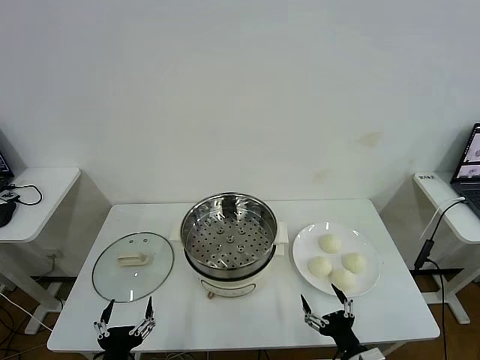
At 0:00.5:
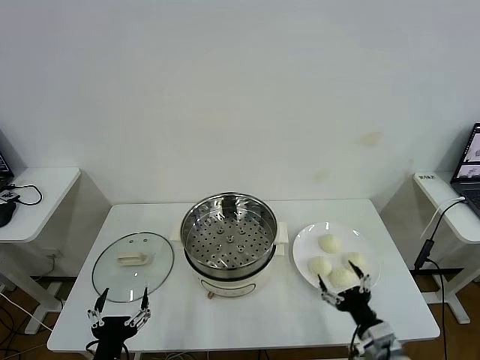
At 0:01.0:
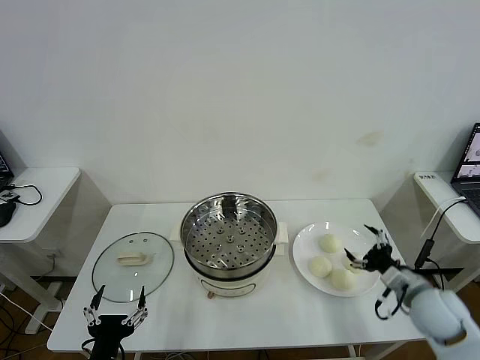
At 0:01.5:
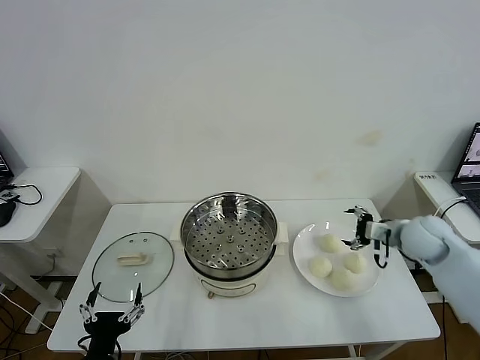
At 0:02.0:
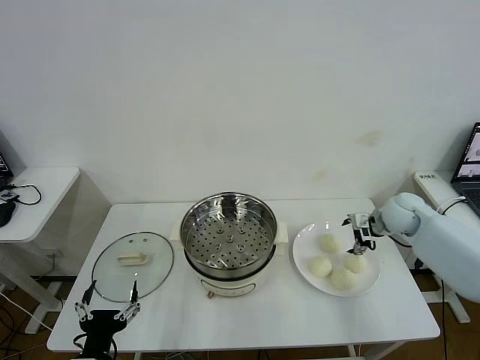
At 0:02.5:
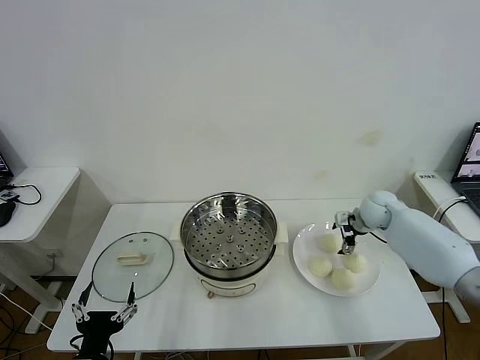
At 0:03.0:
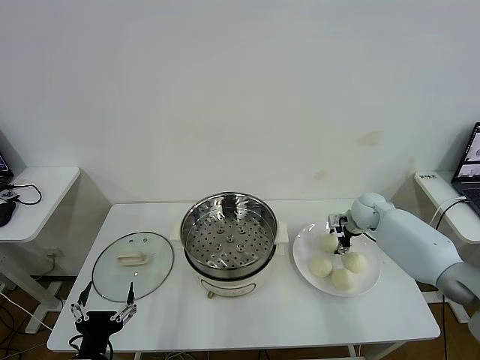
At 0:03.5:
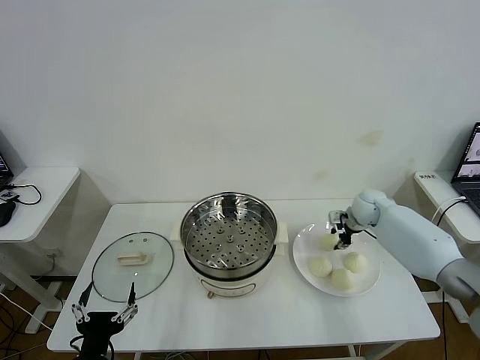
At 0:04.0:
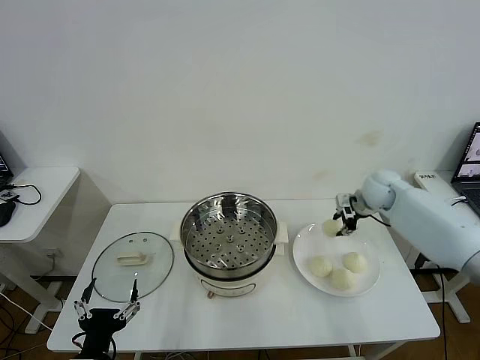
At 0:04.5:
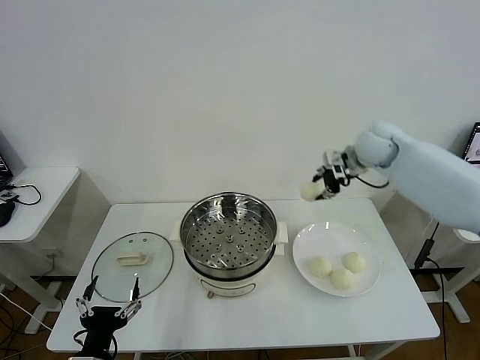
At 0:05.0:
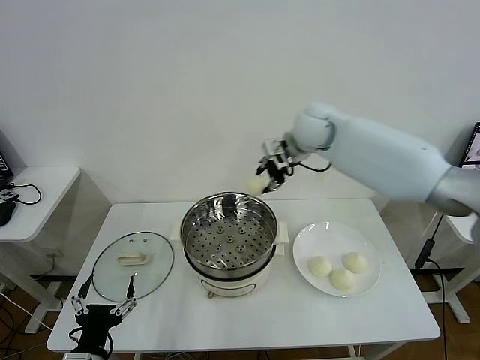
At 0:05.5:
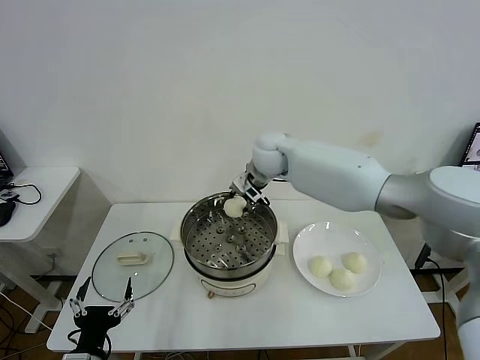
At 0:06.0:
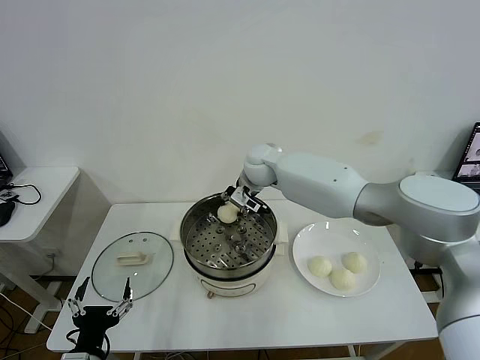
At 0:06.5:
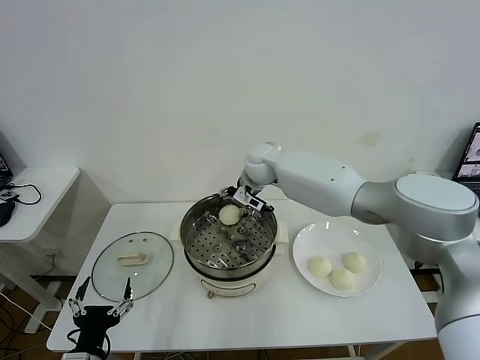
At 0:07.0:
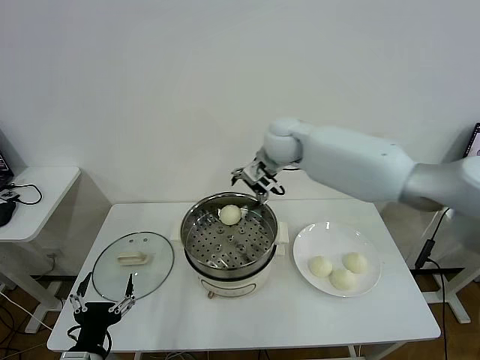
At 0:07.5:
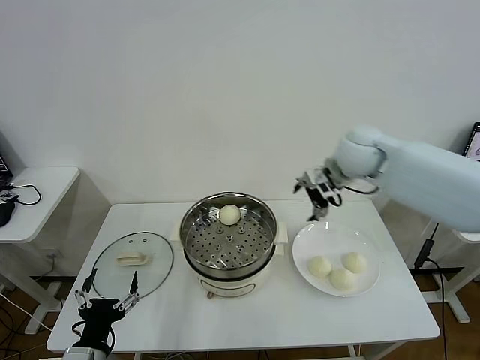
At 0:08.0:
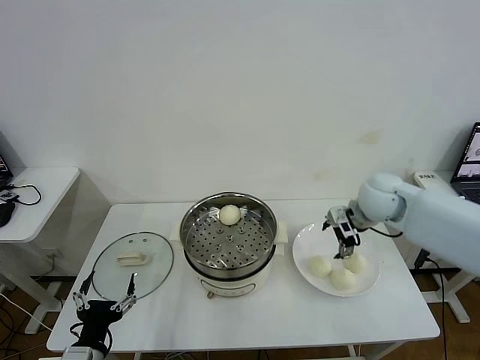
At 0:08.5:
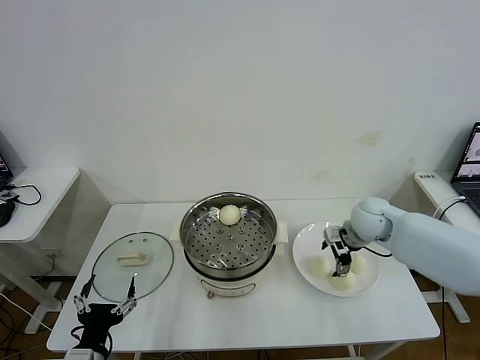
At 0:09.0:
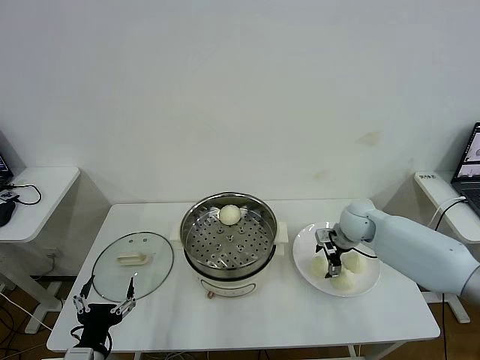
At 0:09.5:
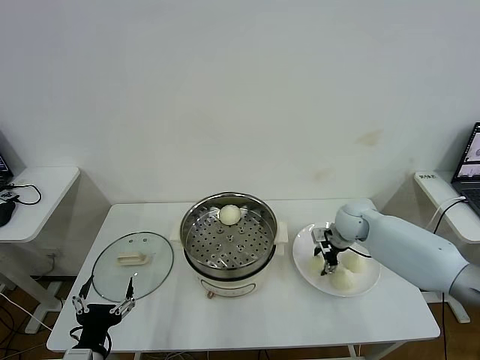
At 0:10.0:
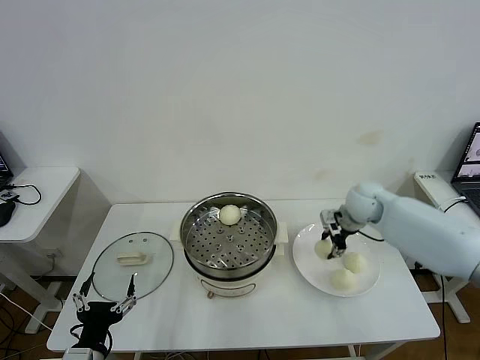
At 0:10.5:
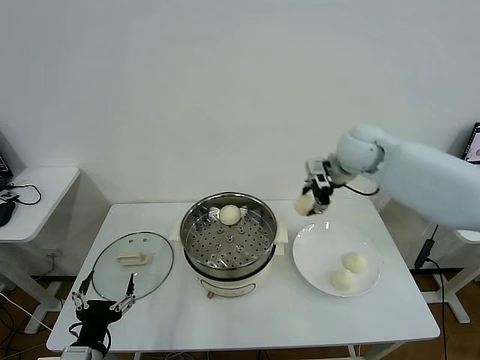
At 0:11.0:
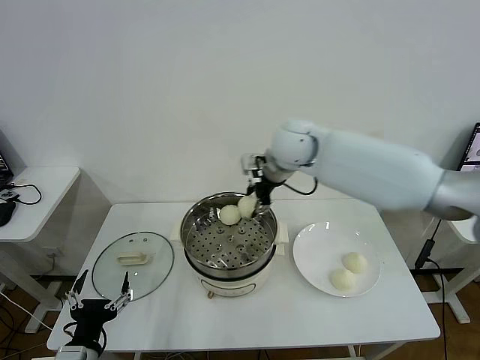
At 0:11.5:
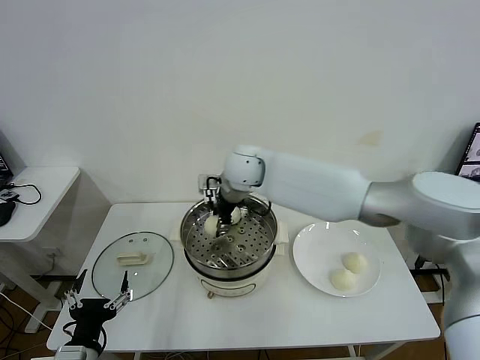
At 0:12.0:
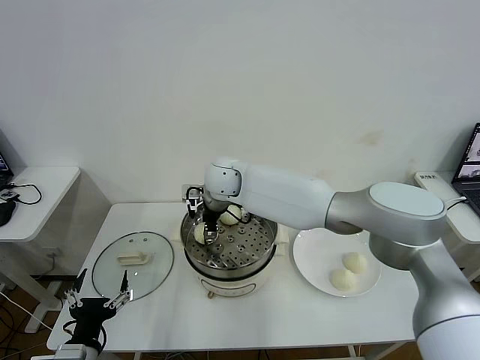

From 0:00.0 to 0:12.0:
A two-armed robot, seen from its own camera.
Task of the whole recording: take steamed baozi put them in steamer then cover it.
Step, from 0:00.0 to 0:03.0: Grasp the baozi in the plate with right gripper.
Step, from 0:03.5 to 0:06.5: Place the baozi on the steamer with right gripper.
Step, from 0:07.0 to 0:09.5: Grasp the baozi in the plate with right gripper.
From 0:02.0 to 0:04.0: The right gripper goes about 5 cm upward, and closes its fingers.
From 0:04.0 to 0:06.0: The right gripper travels to the left by about 30 cm.
From 0:06.0 to 0:08.0: The right gripper moves to the right and backward, approximately 30 cm, and opens its fingers.
From 0:08.0 to 0:10.0: The right gripper is displaced forward by some 5 cm, travels downward and back again, about 10 cm each way, and closes up.
From 0:10.0 to 0:12.0: The right gripper goes approximately 35 cm to the left, and opens.

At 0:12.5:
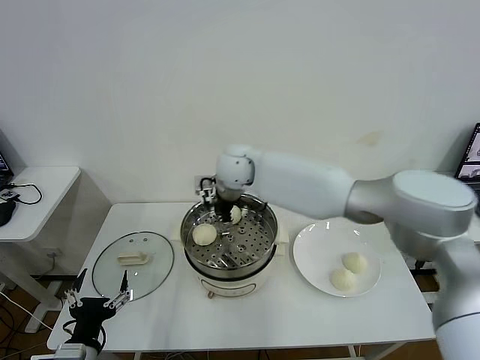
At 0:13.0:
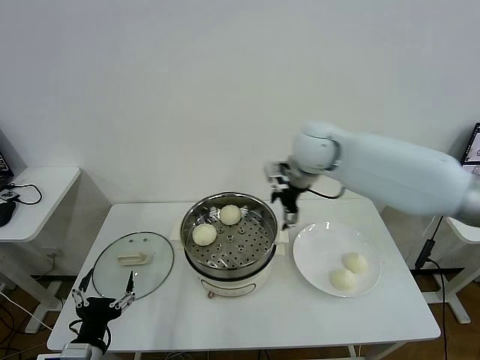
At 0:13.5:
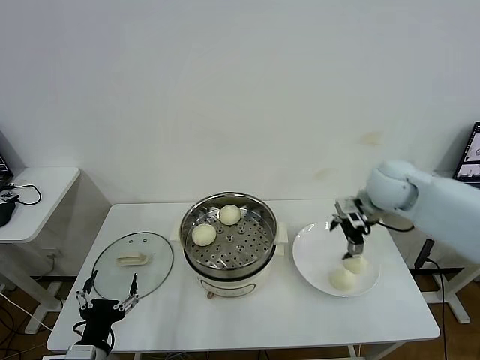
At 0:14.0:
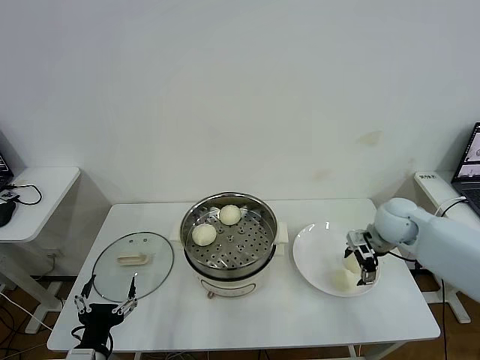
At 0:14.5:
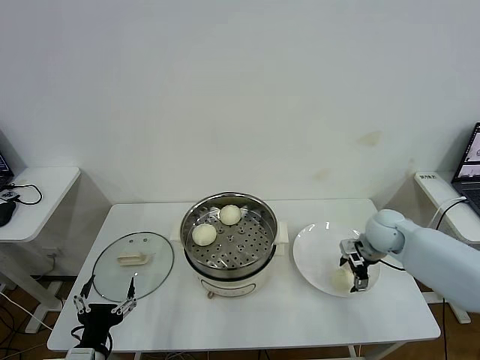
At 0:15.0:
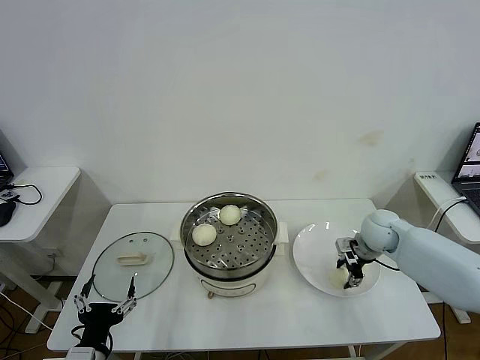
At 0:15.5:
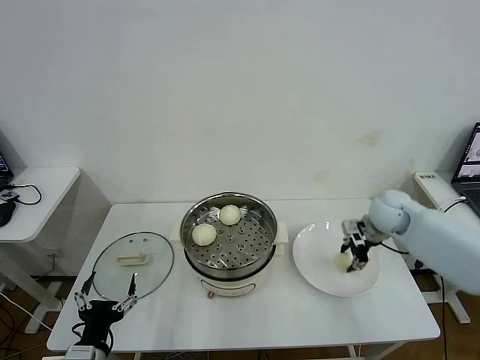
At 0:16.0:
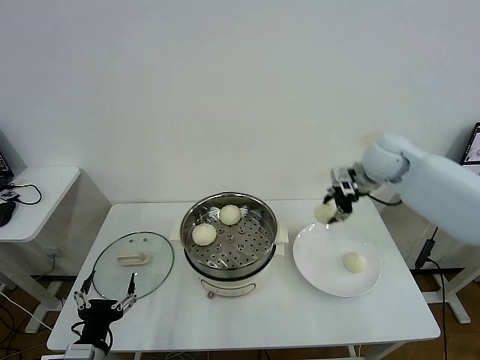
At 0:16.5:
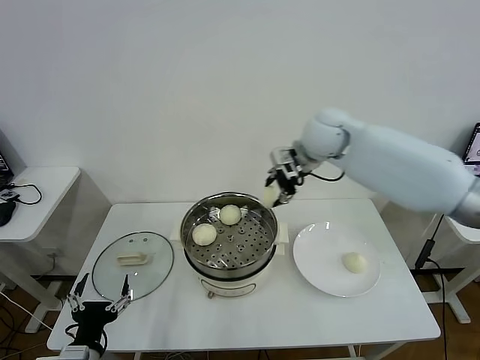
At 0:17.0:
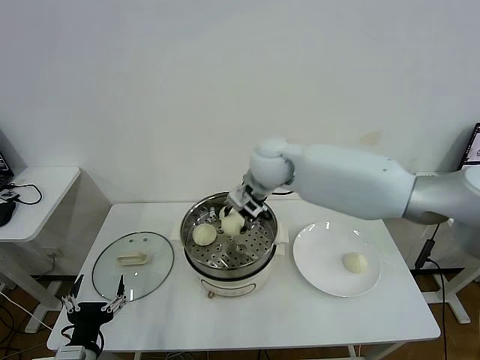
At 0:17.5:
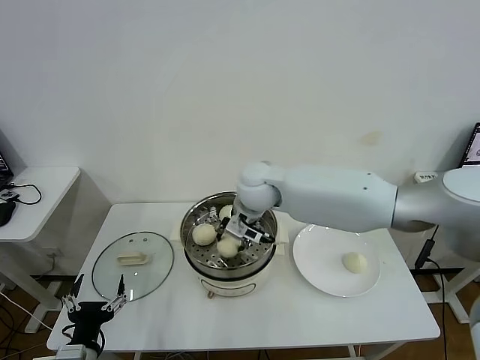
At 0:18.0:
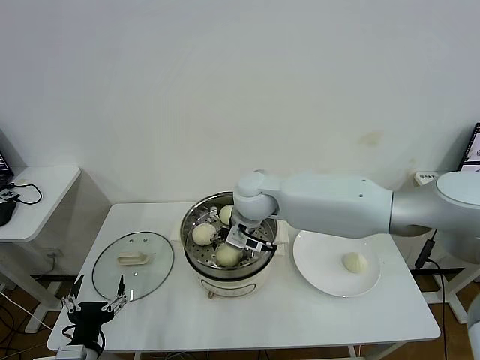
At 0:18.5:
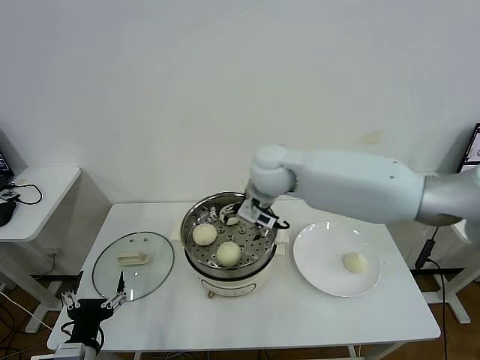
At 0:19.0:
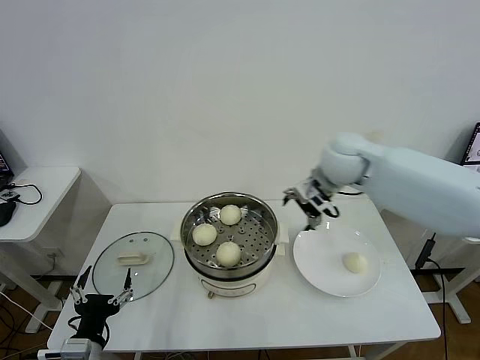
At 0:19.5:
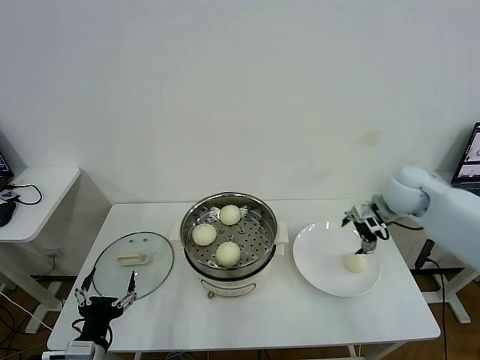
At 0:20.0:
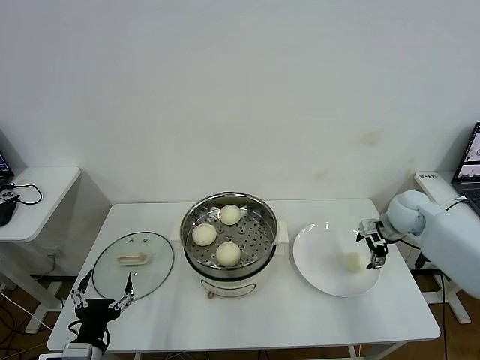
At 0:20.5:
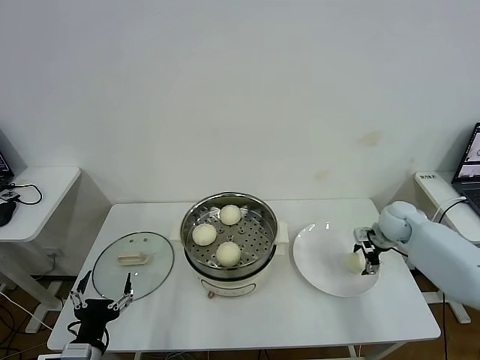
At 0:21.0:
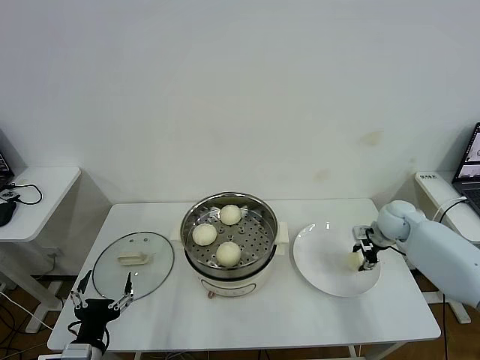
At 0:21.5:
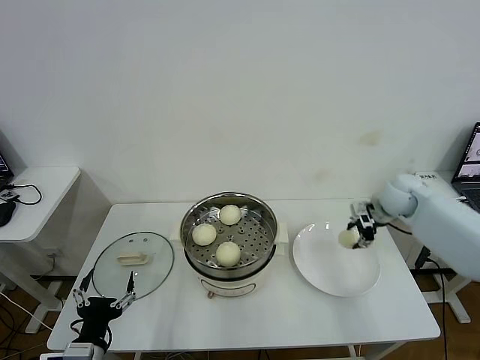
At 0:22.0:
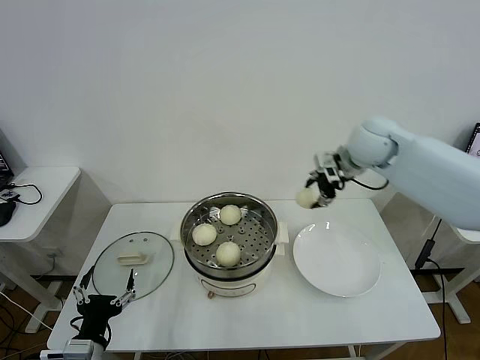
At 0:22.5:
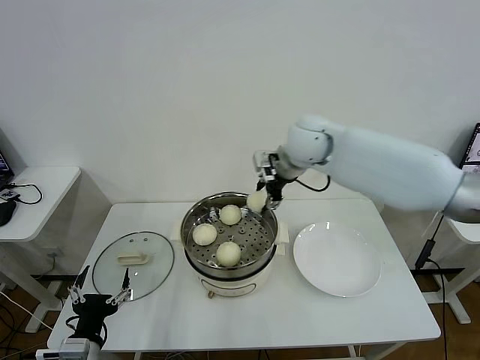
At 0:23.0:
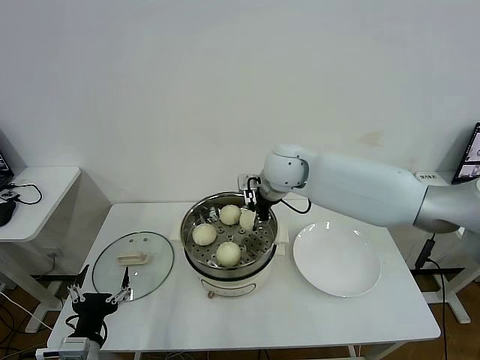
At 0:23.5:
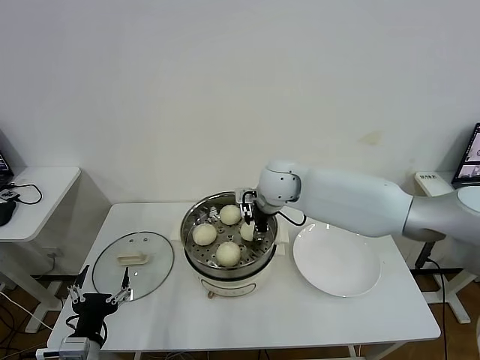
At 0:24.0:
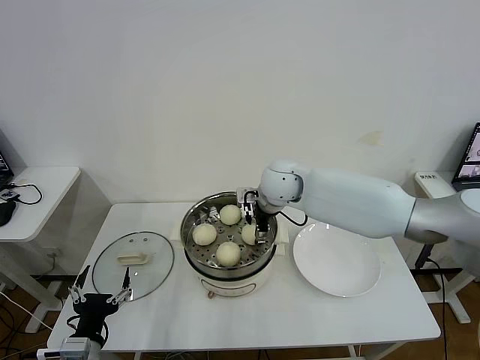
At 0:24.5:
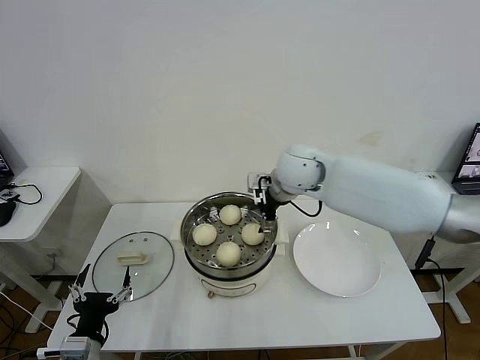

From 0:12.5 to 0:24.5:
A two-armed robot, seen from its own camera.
Task of the whole recording: take steamed baozi put them in steamer then cover it.
Step, from 0:12.5 to 0:15.0: Grasp the baozi in the plate with right gripper.
Step, from 0:15.5 to 0:18.0: Place the baozi on the steamer with right gripper.
Step, from 0:18.5 to 0:21.0: Grasp the baozi in the plate with right gripper.
Step, from 0:21.5 to 0:24.0: Place the baozi on the steamer with right gripper.
From 0:12.5 to 0:14.5: The right gripper shifts some 40 cm to the right and downward.
From 0:14.5 to 0:16.5: The right gripper heads upward and to the left, covering approximately 30 cm, and closes.
From 0:16.5 to 0:18.5: The right gripper is displaced to the left by about 10 cm, and opens.
From 0:18.5 to 0:20.5: The right gripper moves to the right and downward, some 40 cm.
From 0:20.5 to 0:22.5: The right gripper travels to the left and upward by some 35 cm, and closes its fingers.
From 0:22.5 to 0:24.5: The right gripper opens its fingers.

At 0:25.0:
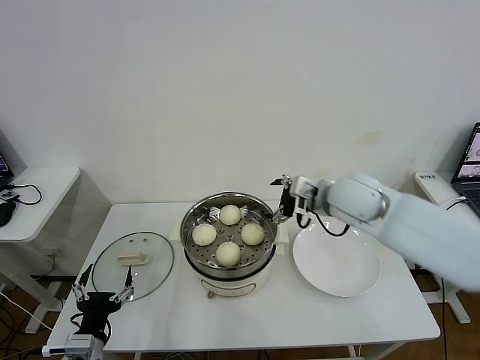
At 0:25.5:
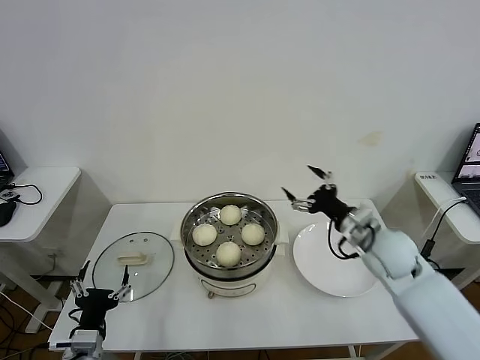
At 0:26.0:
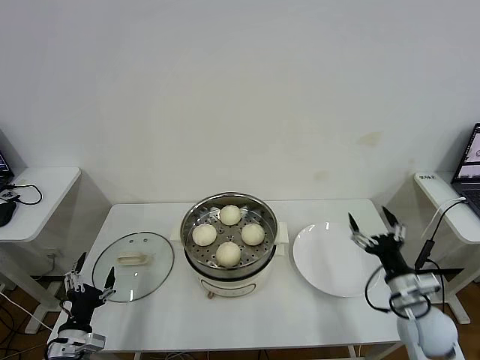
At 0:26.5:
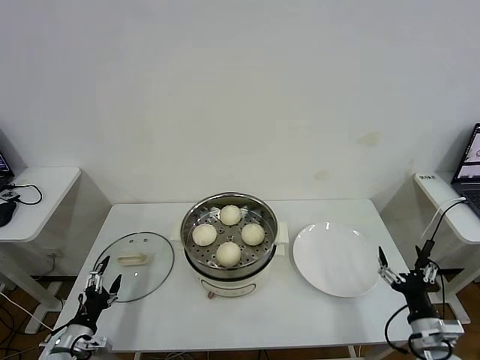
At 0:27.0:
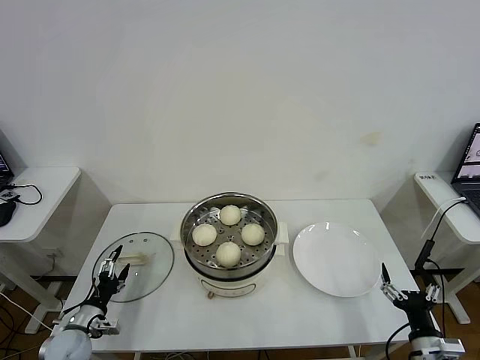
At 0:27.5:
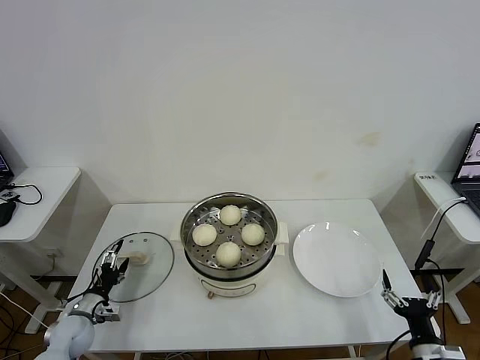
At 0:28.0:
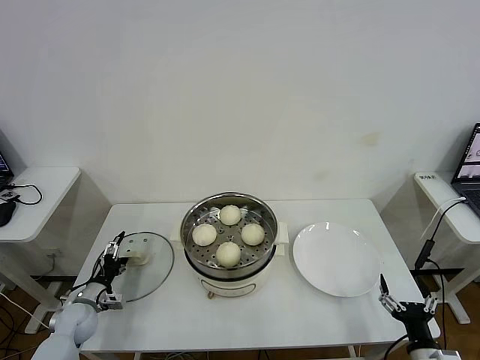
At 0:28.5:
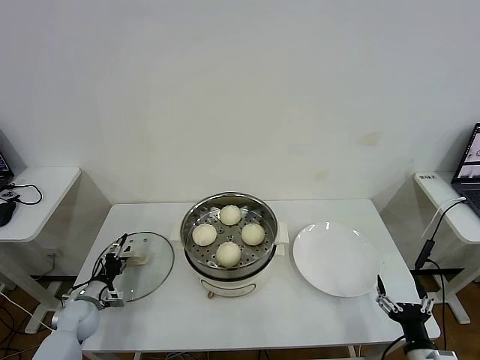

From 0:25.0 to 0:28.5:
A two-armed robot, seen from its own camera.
Task of the whole recording: take steamed baozi put them in steamer then cover it.
From 0:25.0 to 0:27.0: The left gripper is displaced to the left, downward and forward by approximately 20 cm. The right gripper shifts approximately 40 cm backward, downward and to the right.
From 0:27.0 to 0:28.5: The left gripper goes roughly 10 cm forward.
